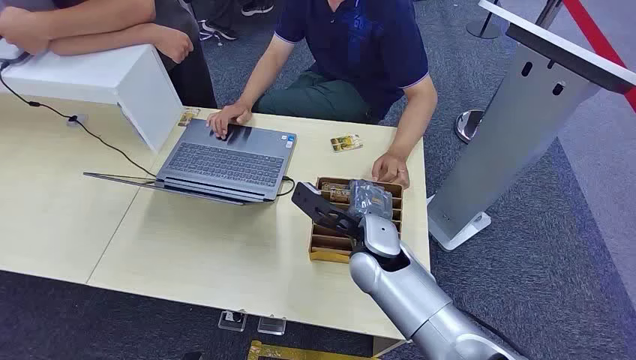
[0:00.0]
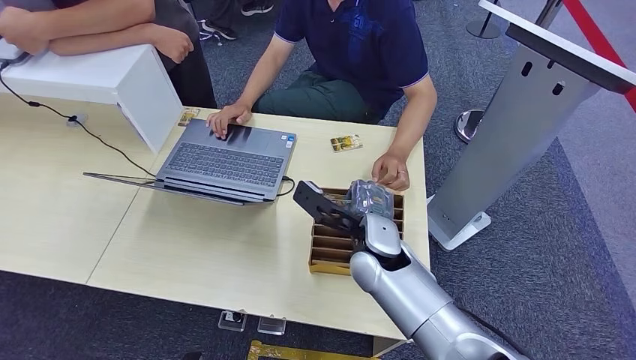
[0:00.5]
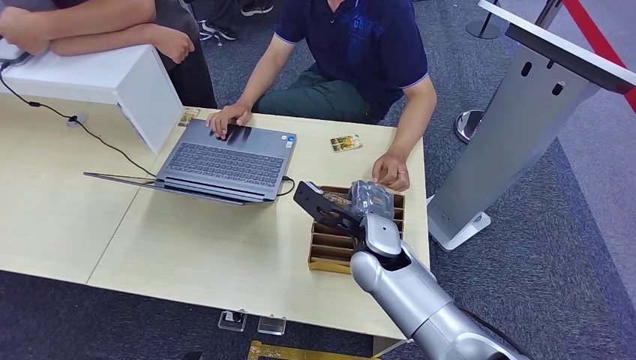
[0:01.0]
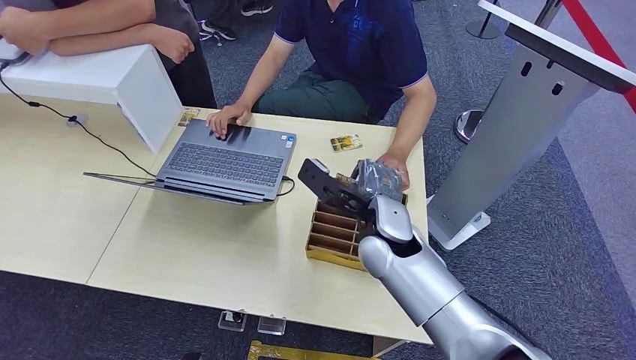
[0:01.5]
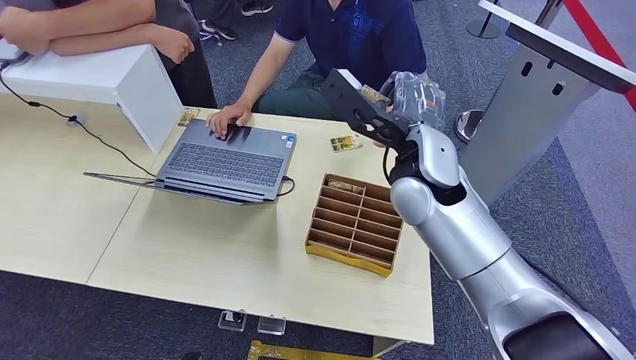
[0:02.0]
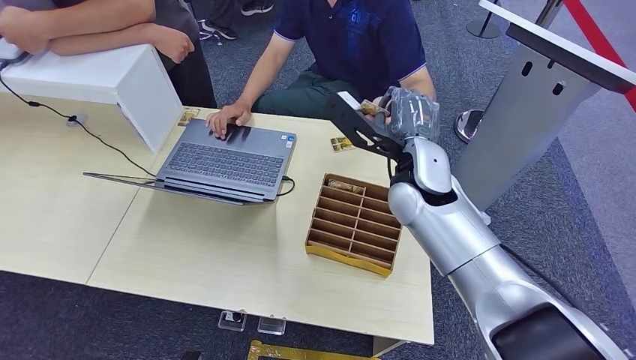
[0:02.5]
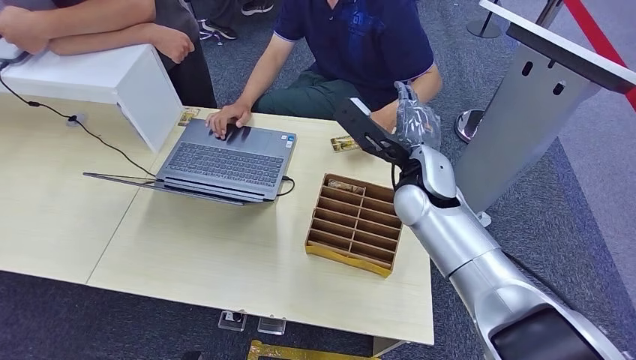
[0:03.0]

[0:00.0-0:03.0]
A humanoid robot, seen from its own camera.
Step, 0:00.0 to 0:02.0: Pick up the room card from the card holder.
Step, 0:02.5 to 0:03.0: Hand the room card to the target.
0:01.5 to 0:03.0: The right hand goes approximately 10 cm forward and upward.
